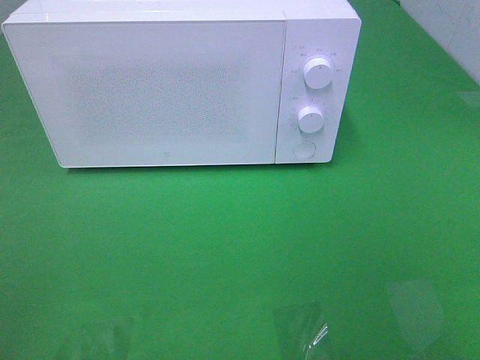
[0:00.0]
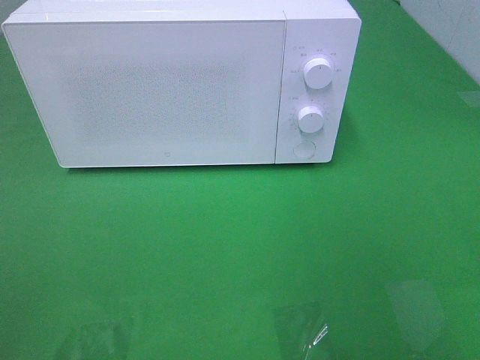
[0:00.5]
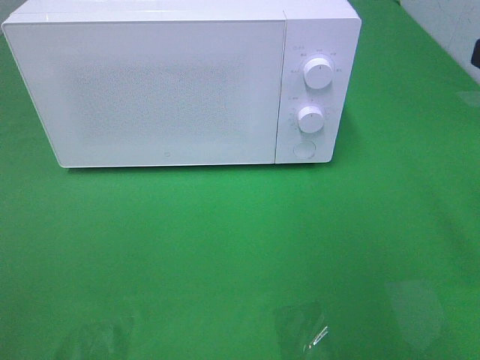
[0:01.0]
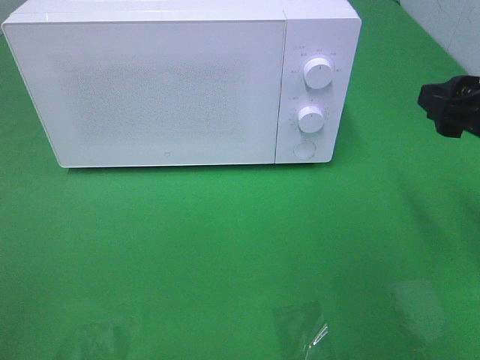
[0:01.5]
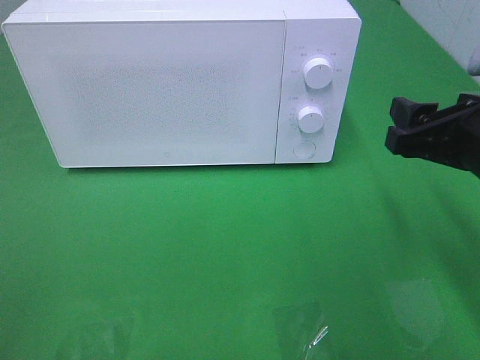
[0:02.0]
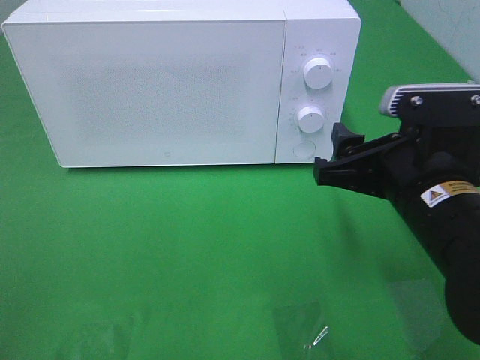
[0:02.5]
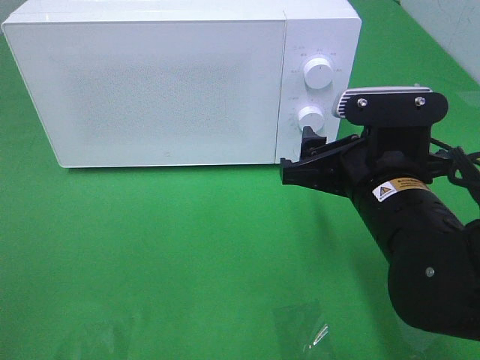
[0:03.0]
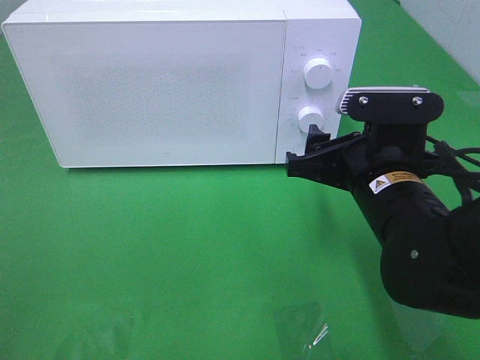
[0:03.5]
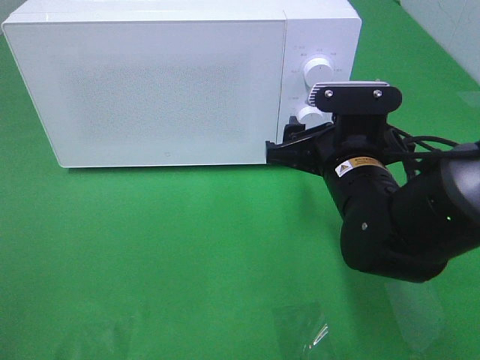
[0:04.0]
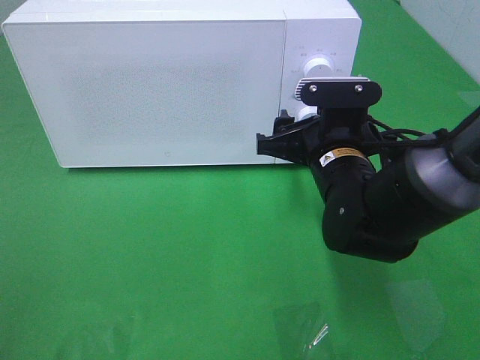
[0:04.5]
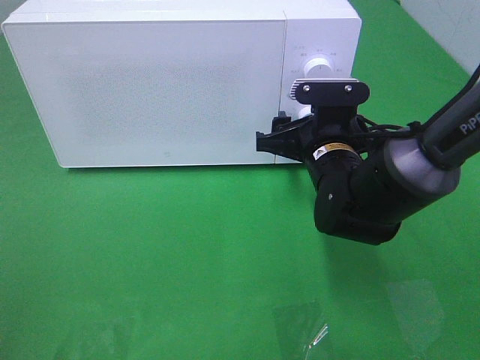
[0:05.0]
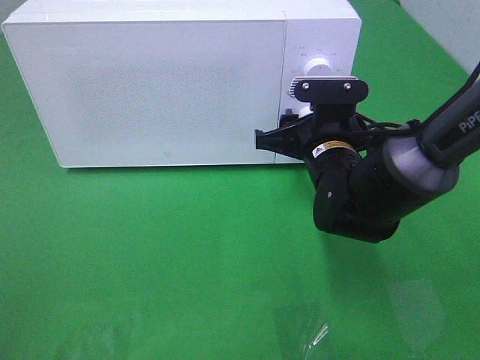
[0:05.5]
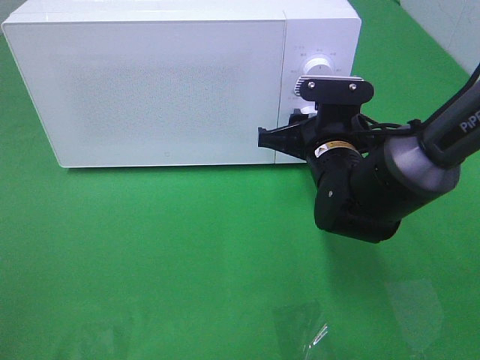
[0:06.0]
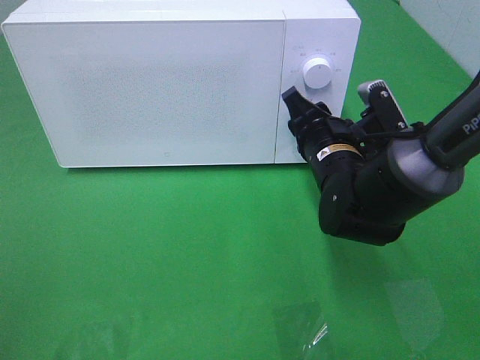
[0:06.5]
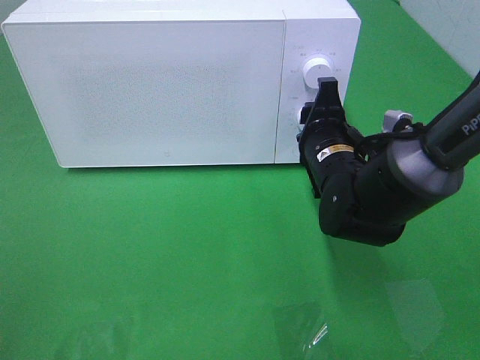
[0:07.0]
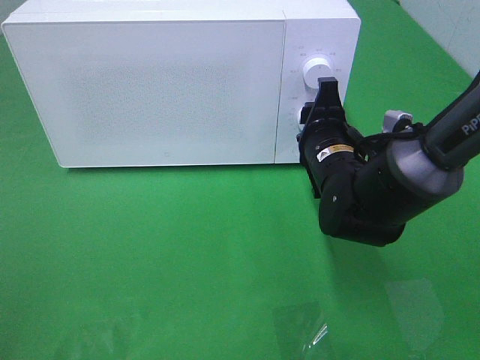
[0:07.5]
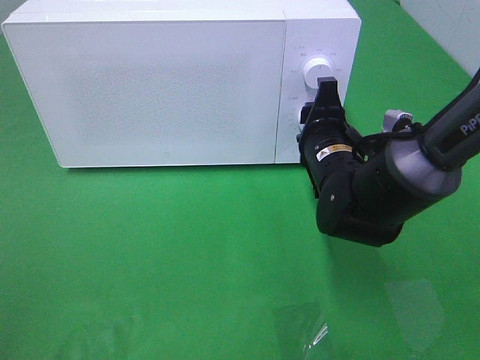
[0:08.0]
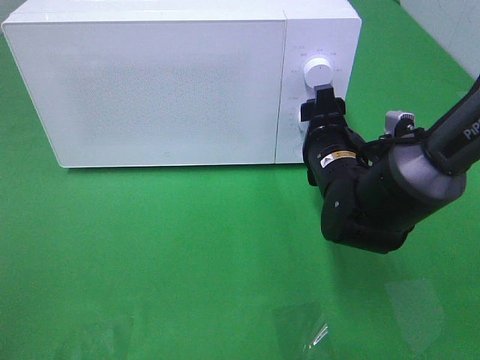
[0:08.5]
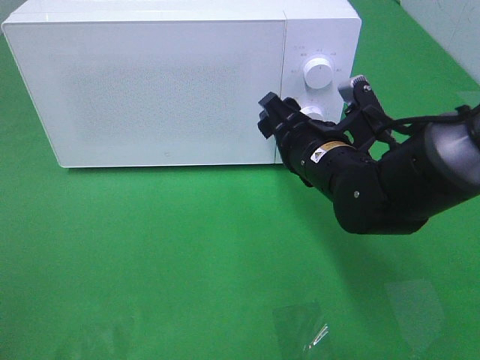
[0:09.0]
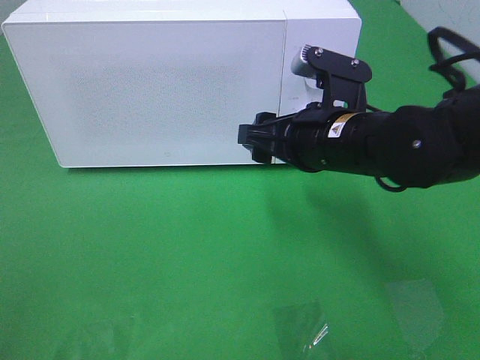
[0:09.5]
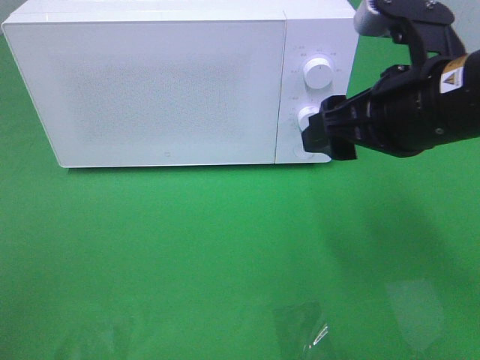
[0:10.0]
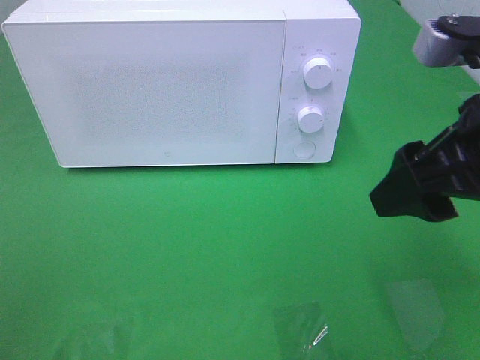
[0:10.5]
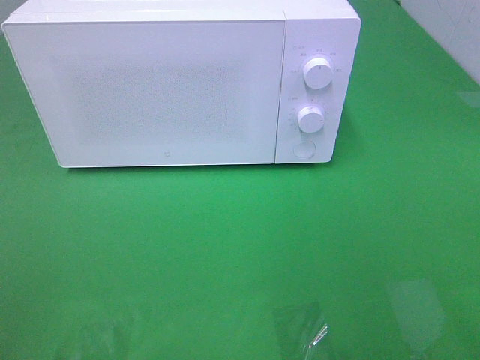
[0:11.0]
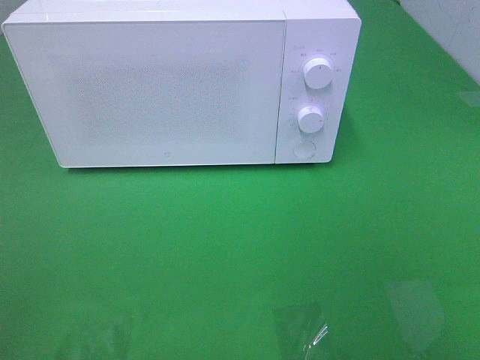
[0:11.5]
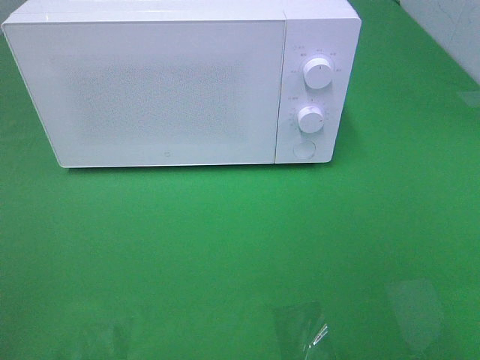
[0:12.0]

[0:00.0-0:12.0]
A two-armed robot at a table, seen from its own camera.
Task of the whole recording: Heat the burger.
Step, 0.0 to 8.0 s: Right hand: twist timer button.
0.0 to 2.0 s: The right gripper is displaced forward and downward by about 20 cm.
2.0 to 4.0 s: The right gripper heads to the left, downward and forward, covering some 15 cm.
4.0 to 6.0 s: The right gripper moves forward, roughly 5 cm.
8.0 to 10.0 s: The right gripper heads upward and backward, covering approximately 15 cm.
10.0 to 12.0 s: The right gripper shifts roughly 25 cm backward and to the right.

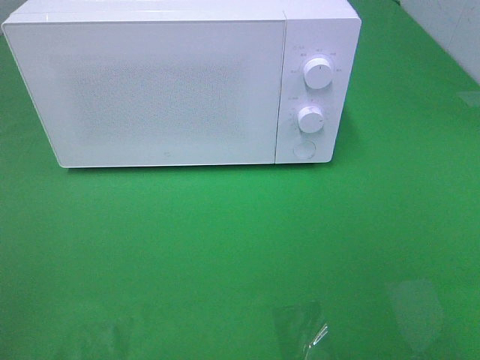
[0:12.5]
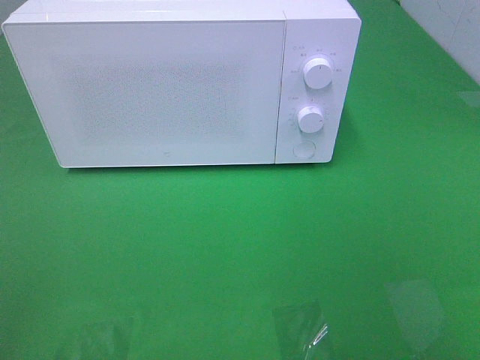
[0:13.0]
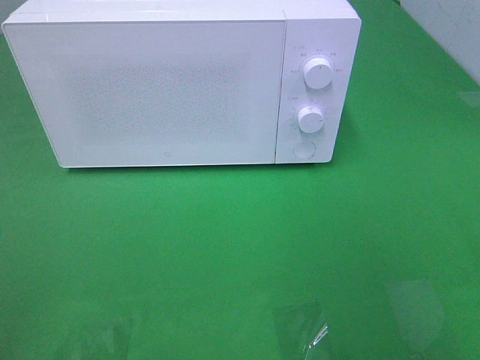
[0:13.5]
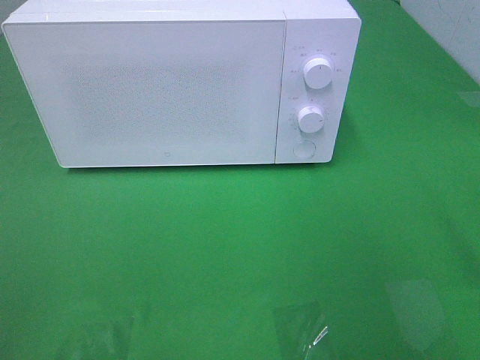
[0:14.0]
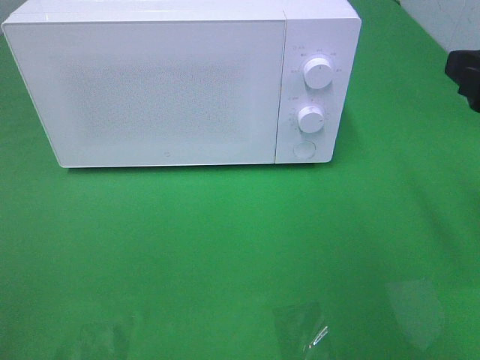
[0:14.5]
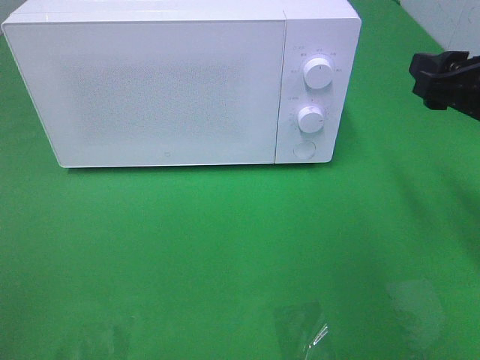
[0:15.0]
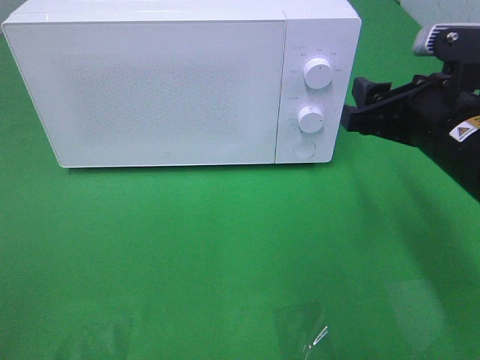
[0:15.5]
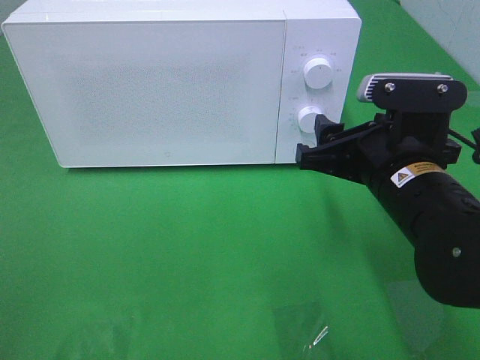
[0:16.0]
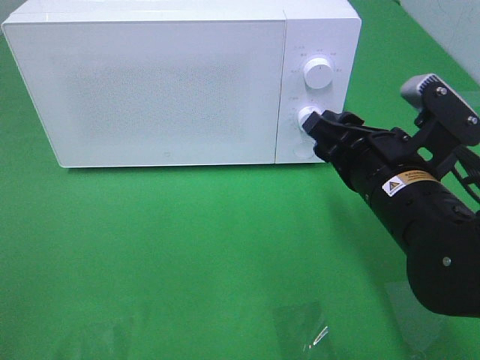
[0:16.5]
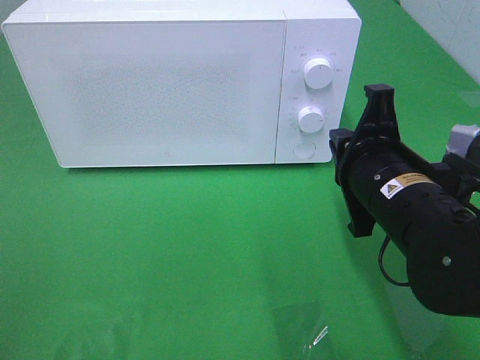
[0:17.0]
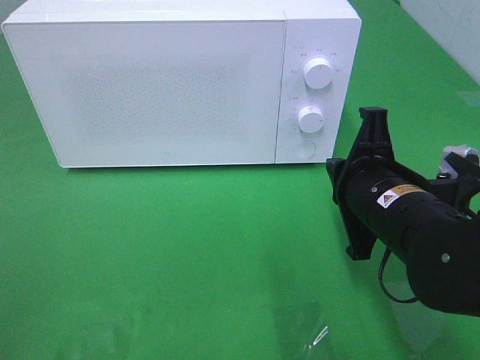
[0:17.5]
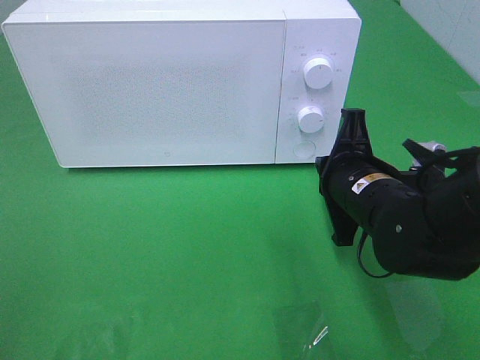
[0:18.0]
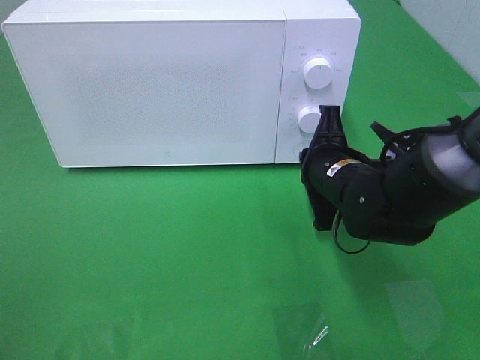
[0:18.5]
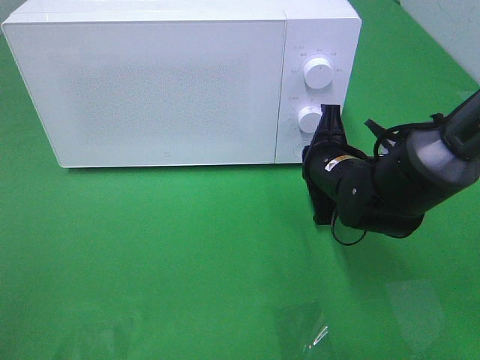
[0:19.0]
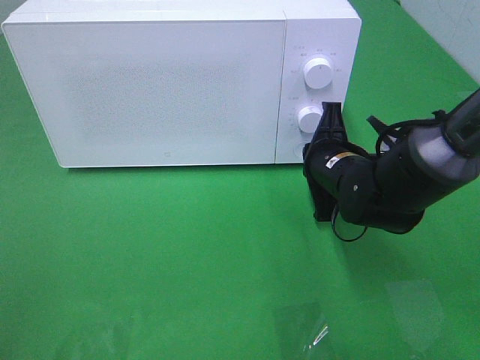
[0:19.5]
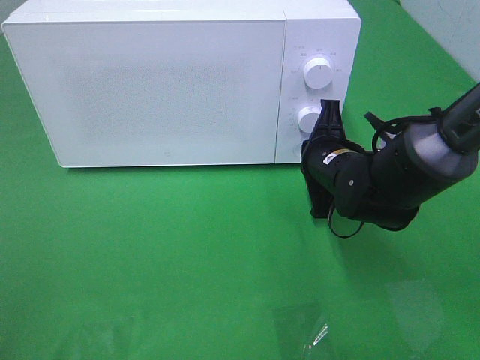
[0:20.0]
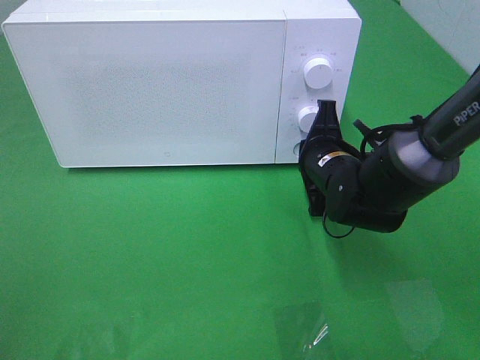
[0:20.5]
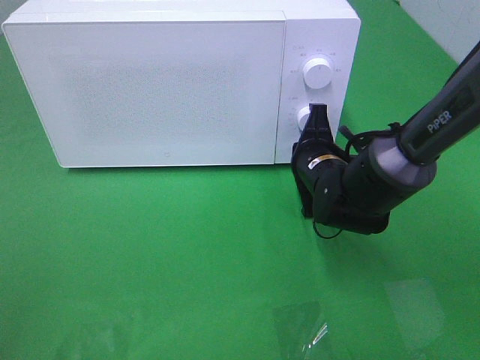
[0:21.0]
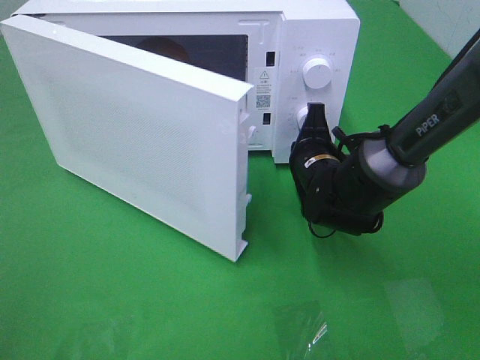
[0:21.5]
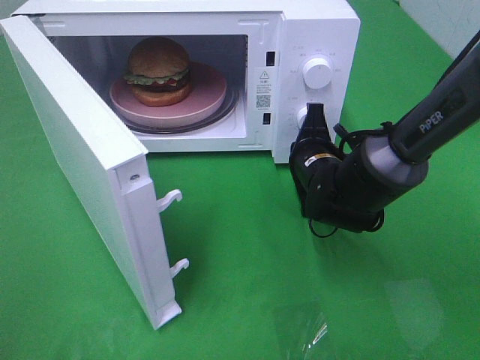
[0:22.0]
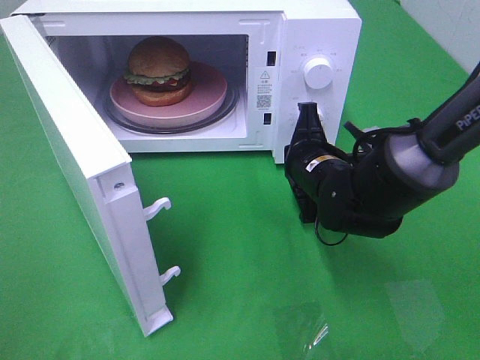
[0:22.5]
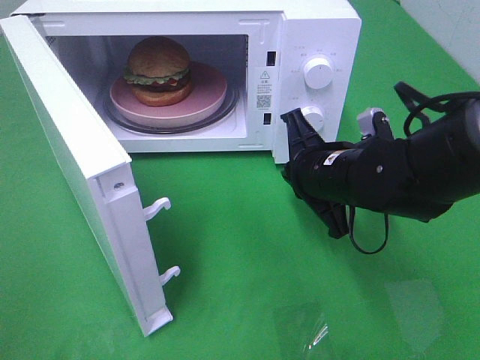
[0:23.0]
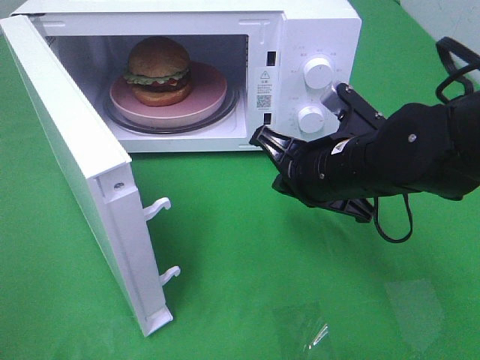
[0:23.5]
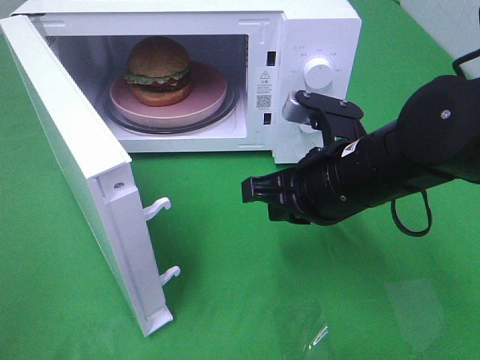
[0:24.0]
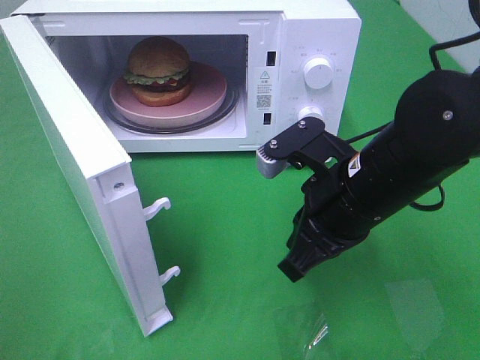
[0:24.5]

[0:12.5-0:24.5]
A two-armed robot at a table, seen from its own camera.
Task of the whole recording: Heat the burger.
Step, 12.5 to 22.0 s: Right hand: press the switch.
12.5 to 14.5 s: The right gripper is displaced forward by some 20 cm.
14.5 to 16.5 s: The right gripper is displaced to the left and downward by approximately 15 cm.
16.5 to 18.5 s: The right gripper heads forward and downward, covering approximately 10 cm, and closes.
18.5 to 20.5 s: The grippers make only small movements.
22.5 to 24.5 s: The right gripper is displaced backward and upward by some 10 cm.

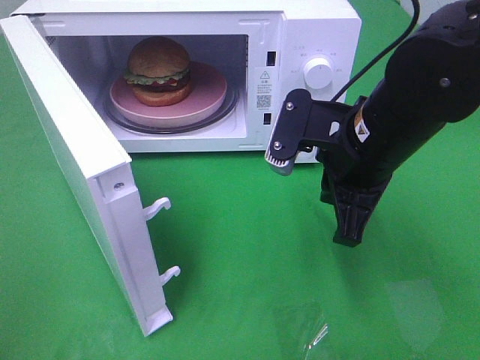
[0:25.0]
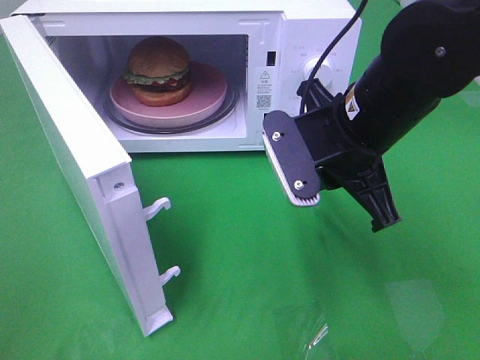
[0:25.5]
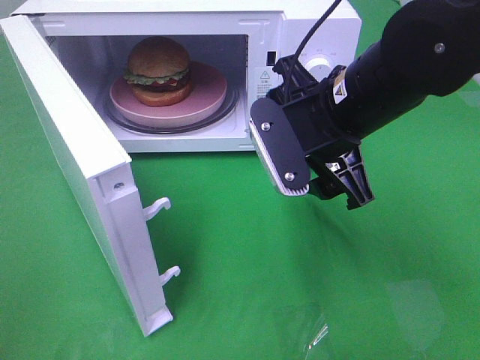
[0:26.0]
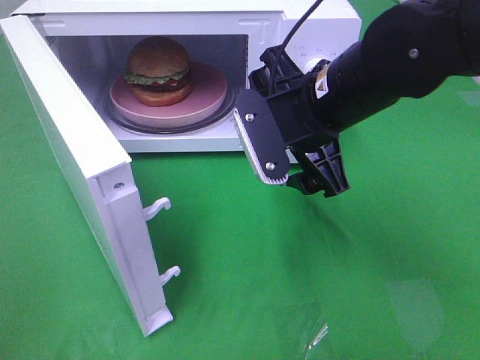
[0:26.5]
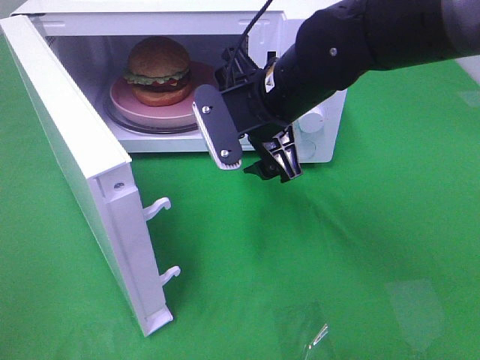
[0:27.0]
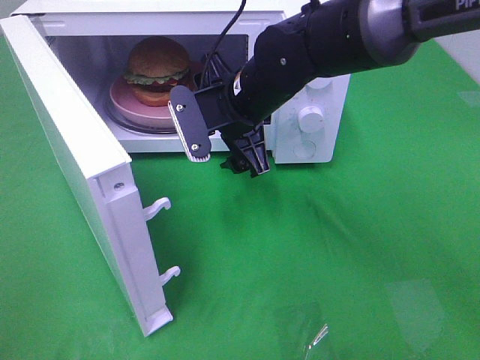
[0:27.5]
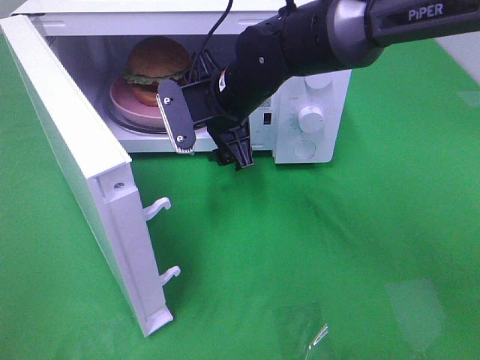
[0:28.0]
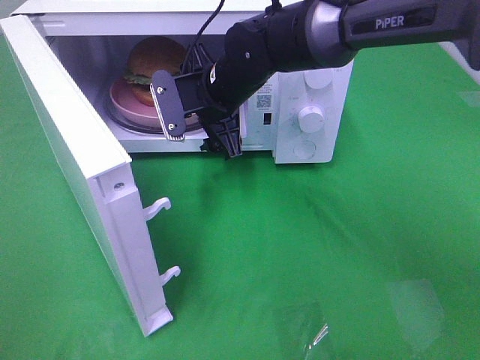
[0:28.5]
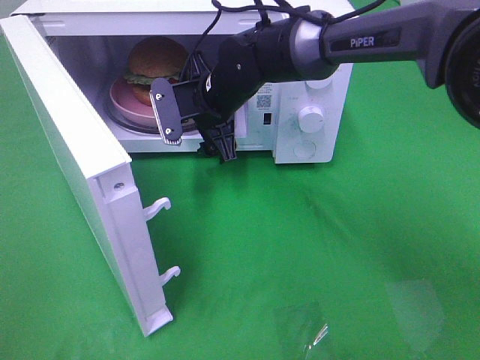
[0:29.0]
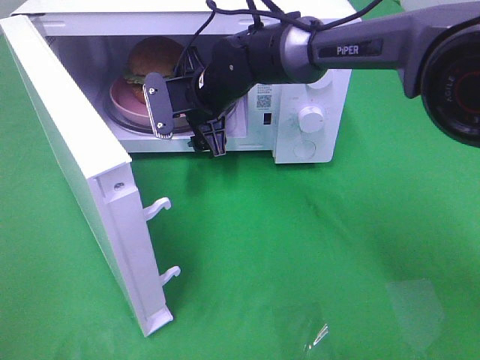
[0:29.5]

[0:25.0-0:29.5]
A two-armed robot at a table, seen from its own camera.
Task of the whole recording: Heat the burger.
25.0 to 27.0 s: The right gripper is displaced to the left and forward by roughly 10 cm, and opens up.
27.0 to 29.5 s: The right gripper shifts some 15 cm forward, to the left and downward.
